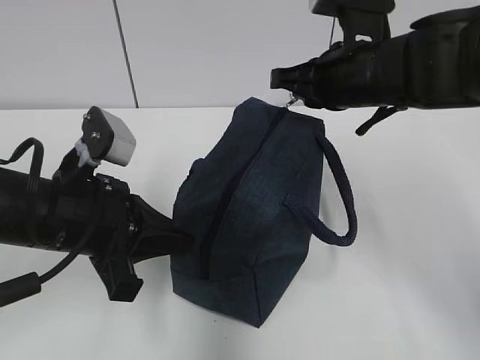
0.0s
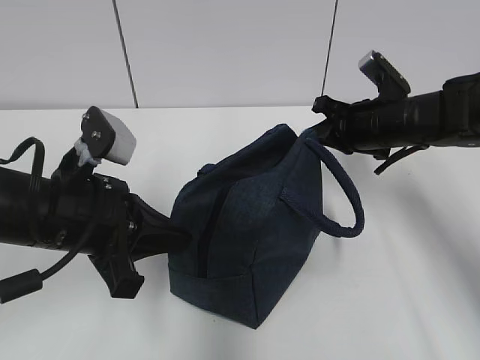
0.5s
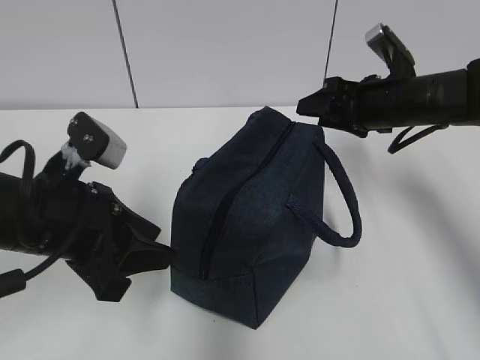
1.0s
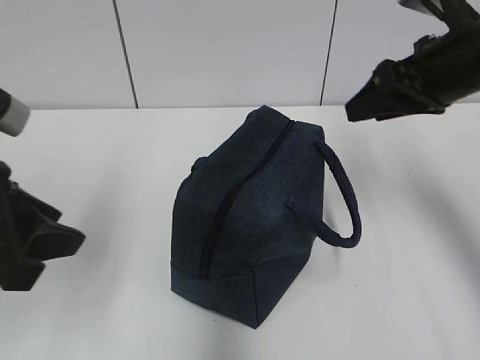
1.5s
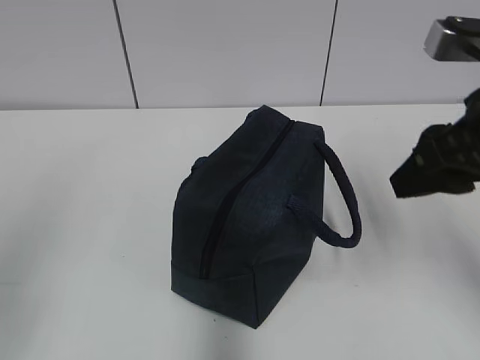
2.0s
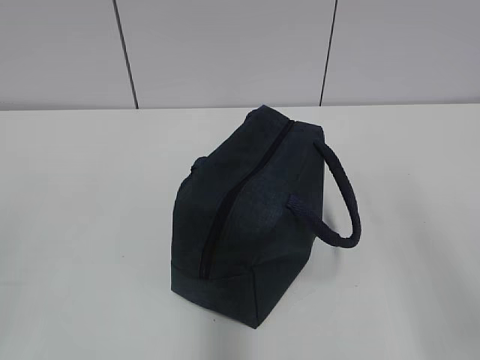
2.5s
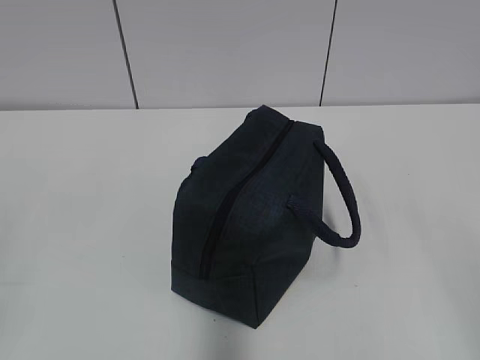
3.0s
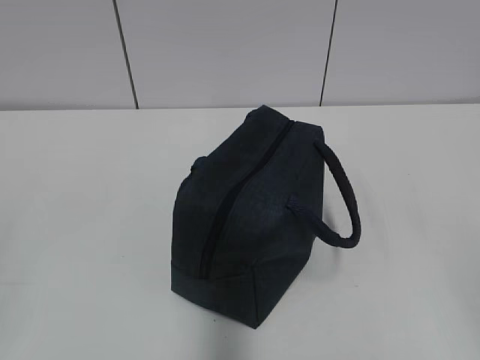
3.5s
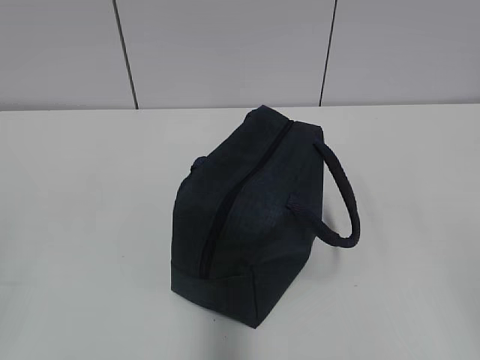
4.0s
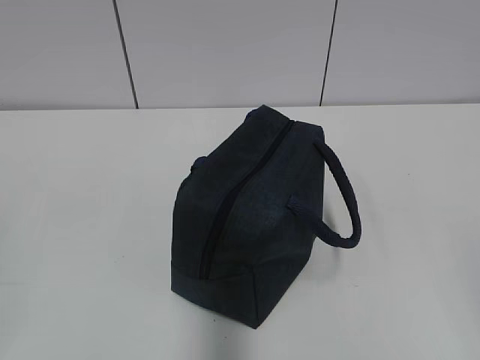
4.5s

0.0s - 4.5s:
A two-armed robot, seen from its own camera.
0.0s - 2.0s: The right gripper shifts roughly 20 cm backward and to the right, and opens, while the left gripper heads backward, to the left and upward, covering some 25 cm, and opens.
2.0s - 4.5s: The right gripper goes some 20 cm backward.

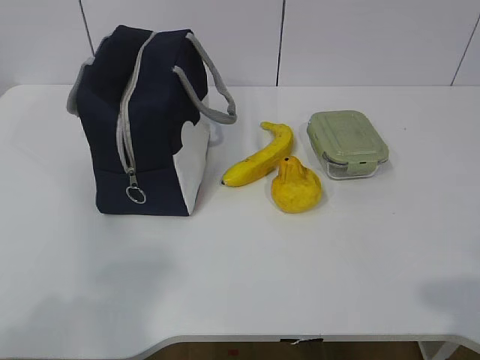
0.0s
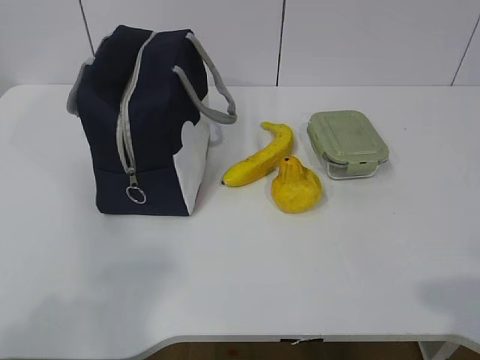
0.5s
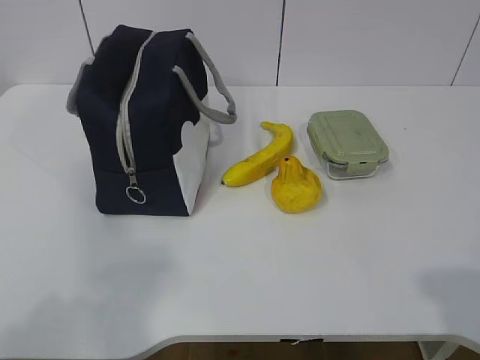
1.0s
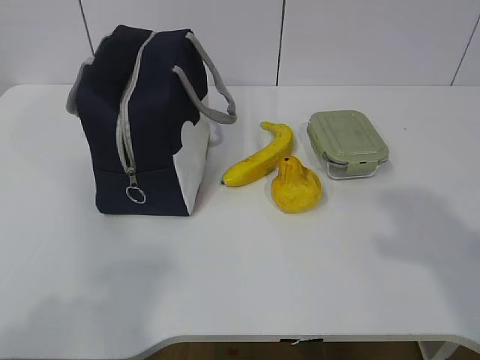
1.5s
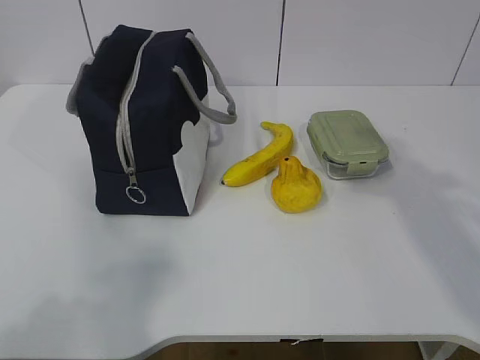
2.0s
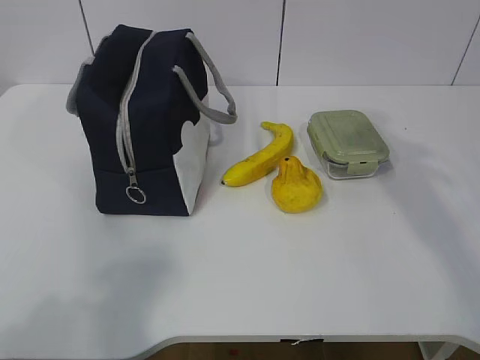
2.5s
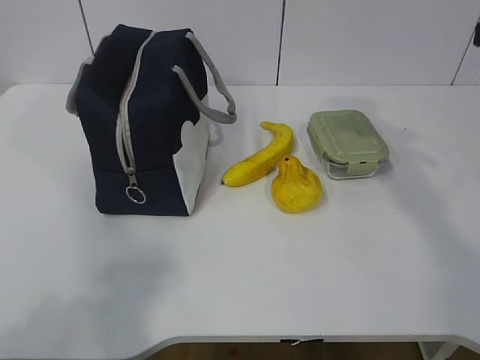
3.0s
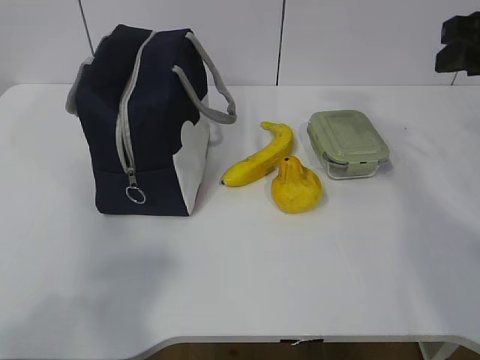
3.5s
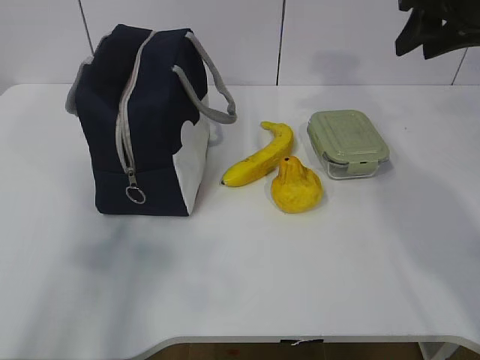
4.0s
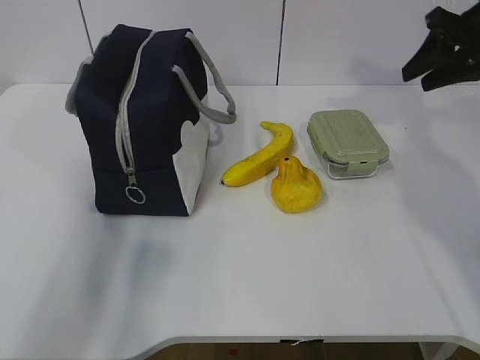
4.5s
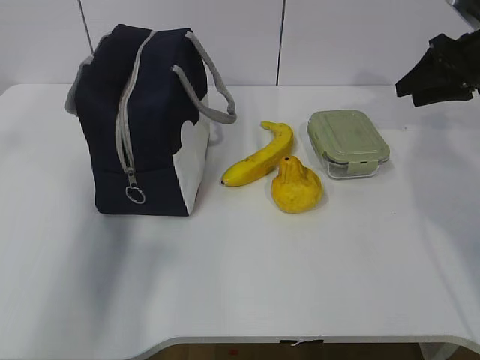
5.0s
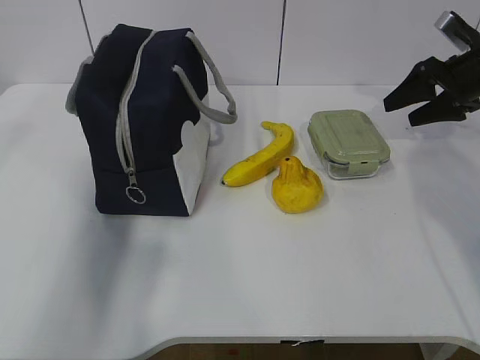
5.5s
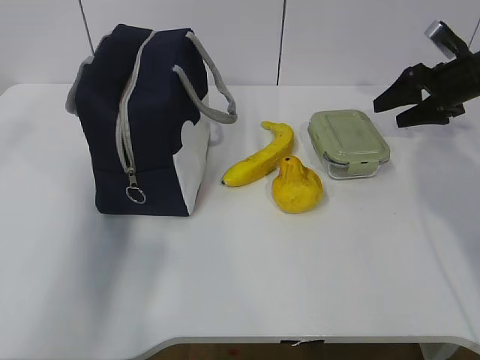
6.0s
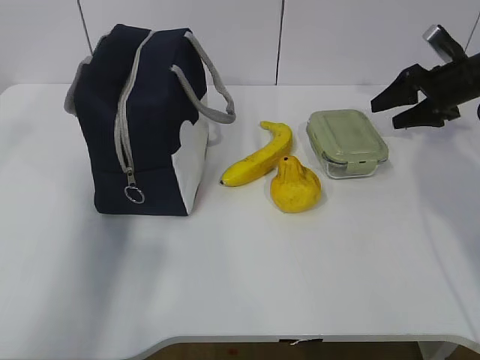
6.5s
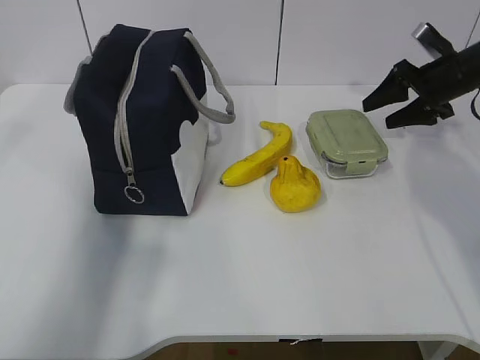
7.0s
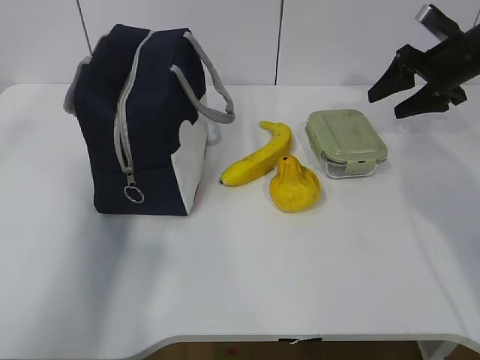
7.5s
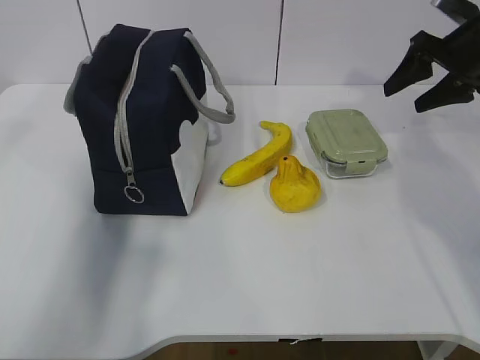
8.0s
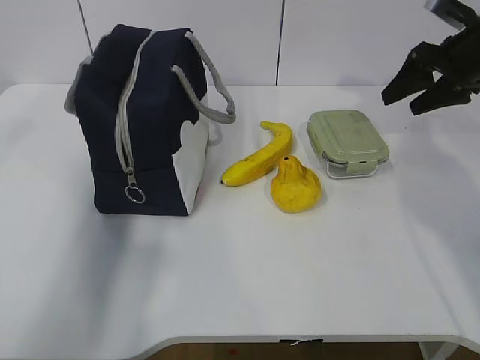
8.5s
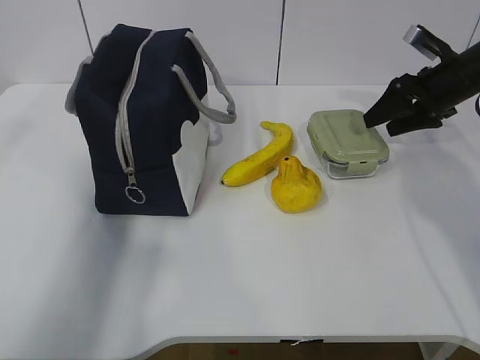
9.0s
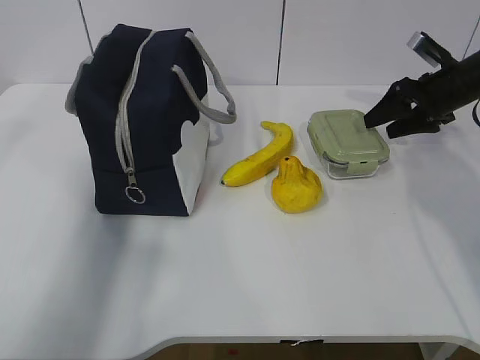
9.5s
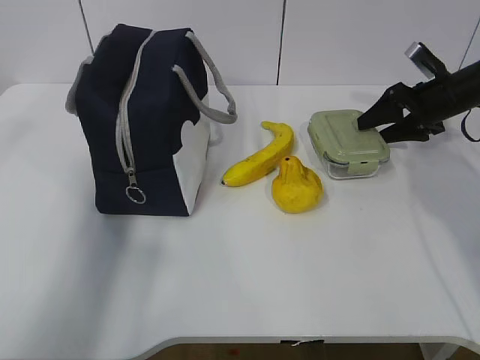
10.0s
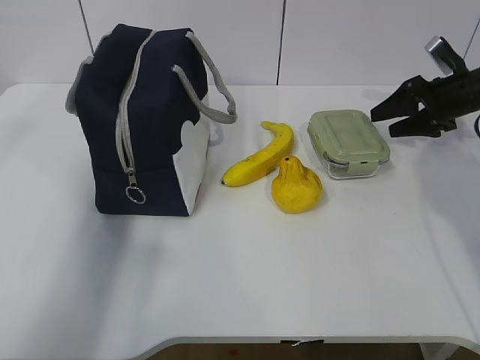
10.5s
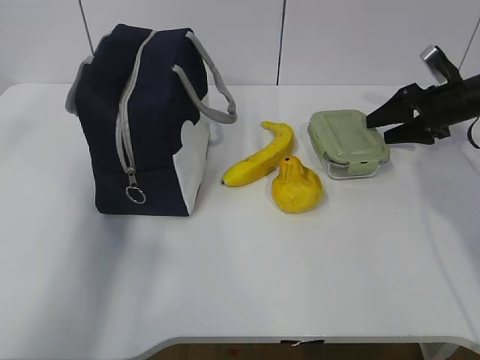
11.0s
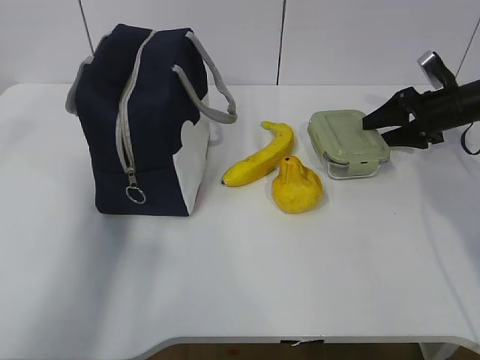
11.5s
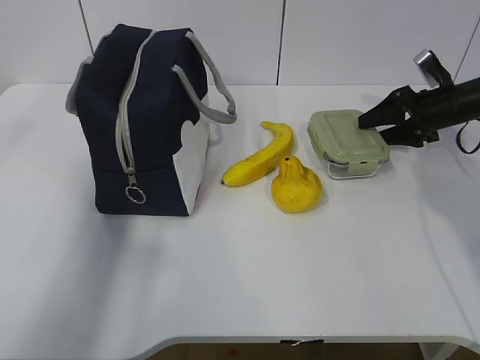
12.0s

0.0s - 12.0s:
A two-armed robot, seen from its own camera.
2.0s - 4.0s: The left gripper moves forward, approximately 10 cm. Meanwhile the right gripper is displaced forward by about 25 cm.
4.0s - 6.0s: The right gripper is displaced downward, to the right and forward by approximately 20 cm, and opens its fingers. The left gripper heads forward, covering some 15 cm.
6.0s - 8.0s: The right gripper goes approximately 5 cm upward.
8.0s - 10.0s: The right gripper shifts approximately 10 cm downward.
10.0s - 12.0s: The grippers move only a little.

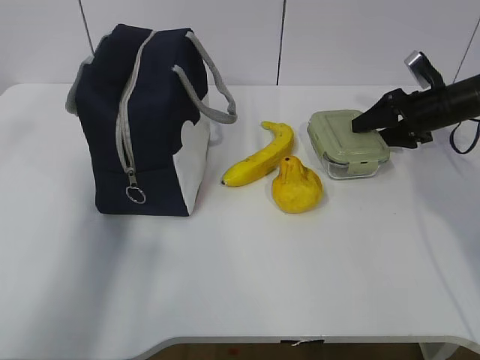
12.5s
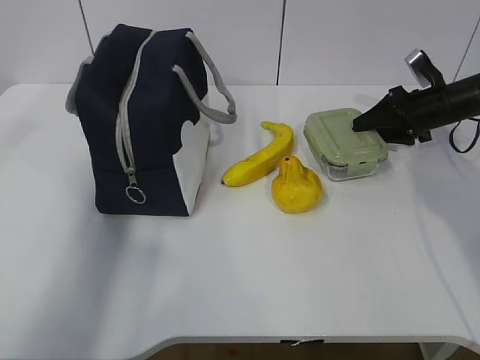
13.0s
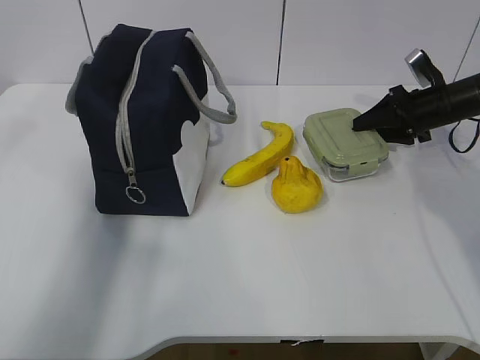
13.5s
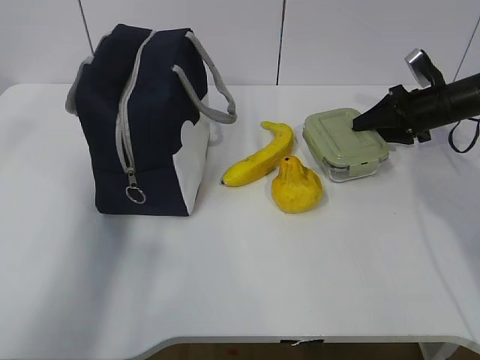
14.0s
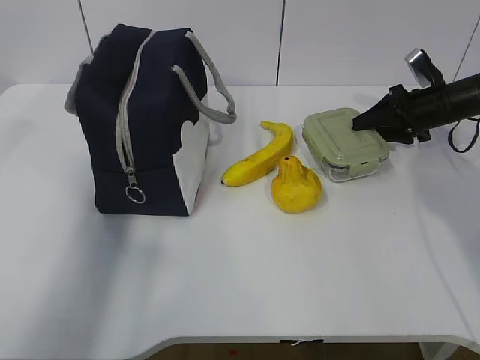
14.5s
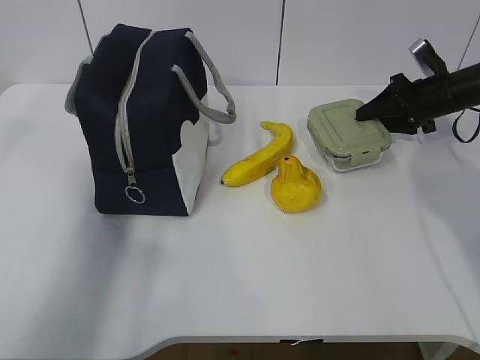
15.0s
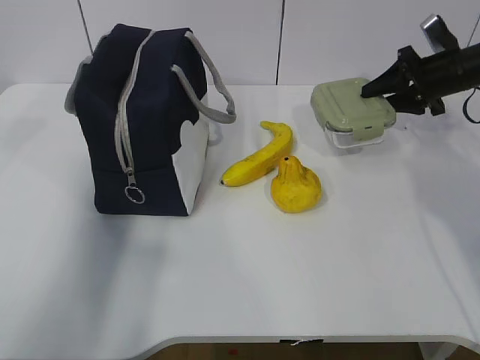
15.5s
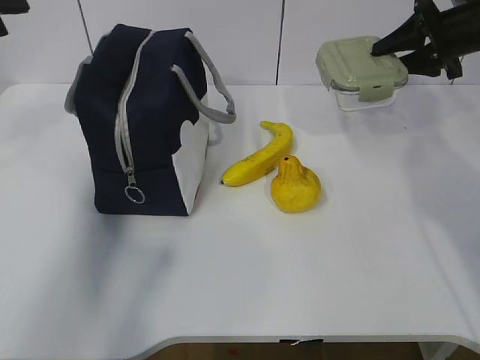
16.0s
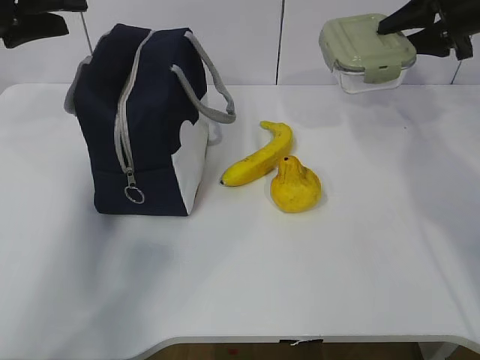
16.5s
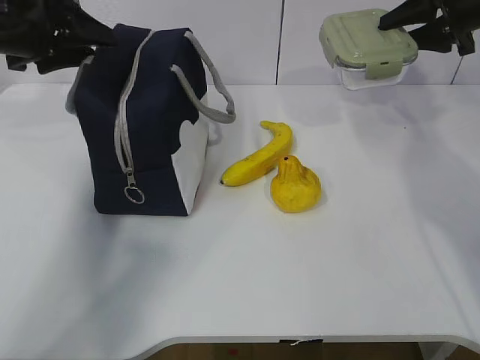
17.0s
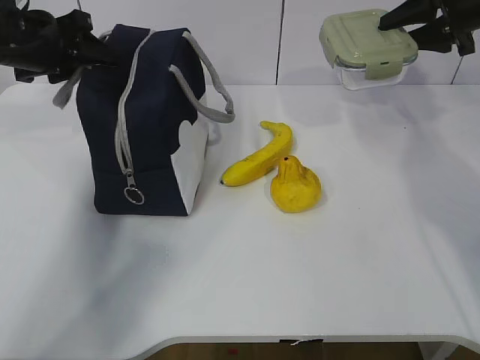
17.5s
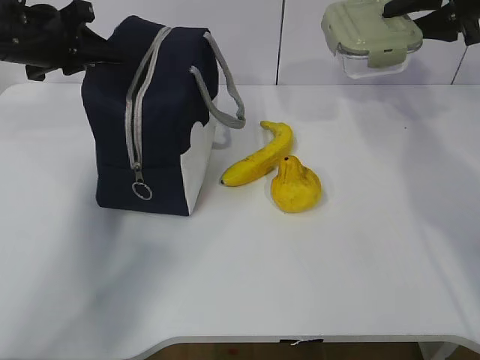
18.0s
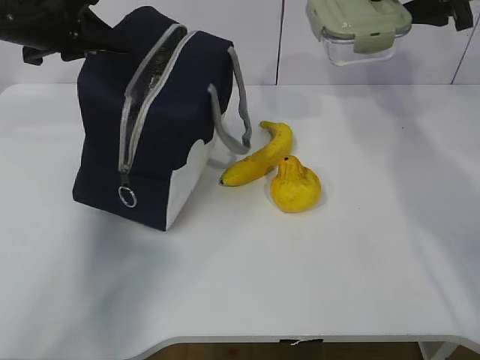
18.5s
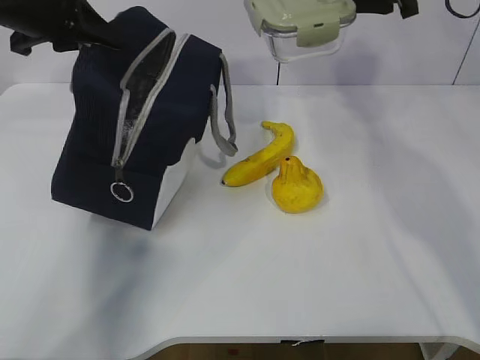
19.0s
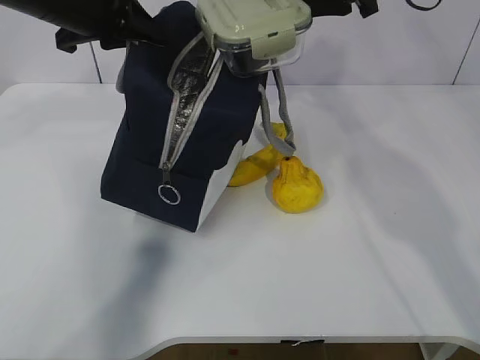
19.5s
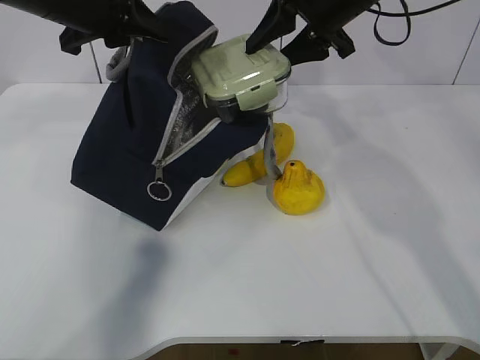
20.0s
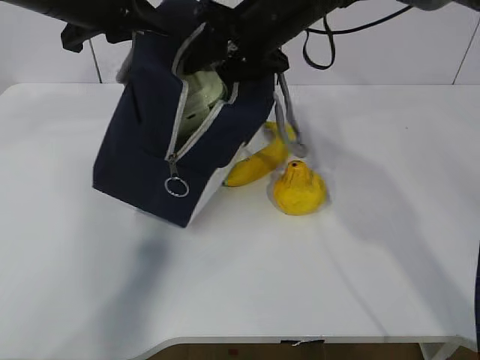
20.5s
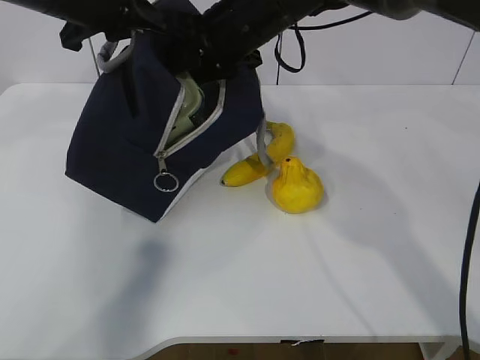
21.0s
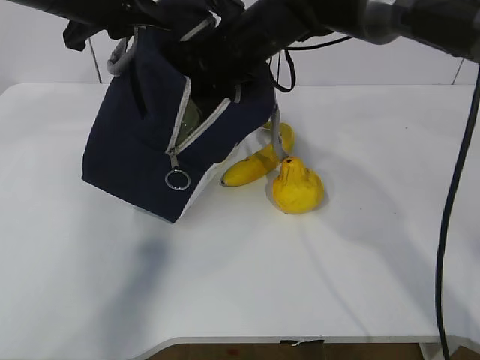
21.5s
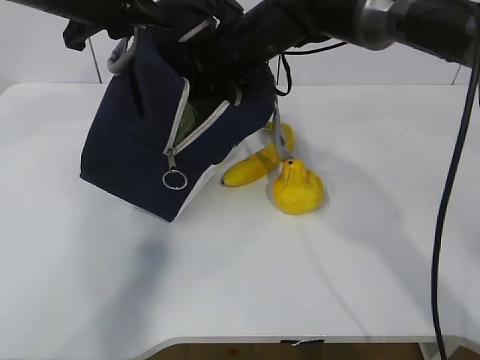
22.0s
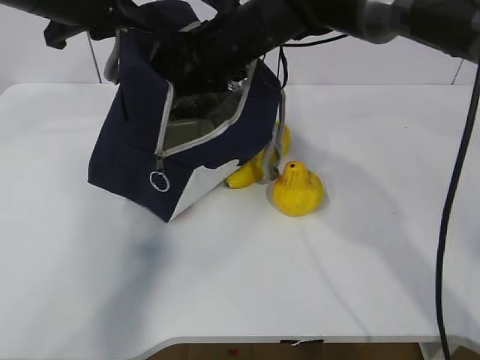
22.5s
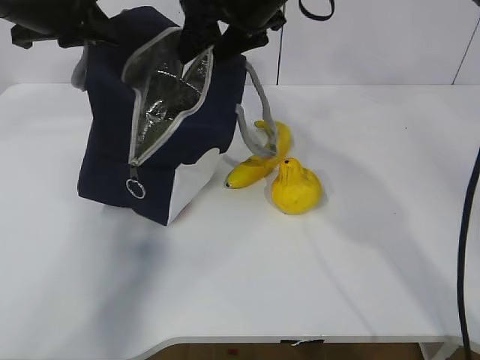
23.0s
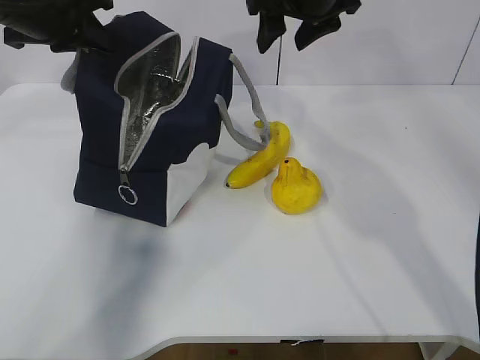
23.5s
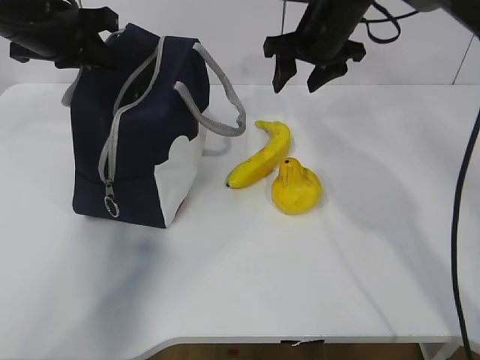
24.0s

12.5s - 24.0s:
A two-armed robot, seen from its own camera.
Step, 13.0s - 16.0s: Grab the lunch bag with your left hand.
Step, 16.5s - 18.5s: Place it into the bag with your right hand.
Step, 19.0s - 22.5s: Grab the banana with your right hand.
12.5s - 14.5s: Both grippers stay about where they are.
14.5s - 16.5s: The left gripper goes roughly 15 cm forward. Meanwhile the right gripper goes roughly 15 cm upward.
16.5s - 18.5s: The left gripper closes up. The right gripper shifts by about 5 cm.
18.5s - 20.0s: The right gripper travels to the left by some 15 cm, while the left gripper moves to the right, about 5 cm.
20.0s - 22.0s: The right gripper moves to the left and downward, about 15 cm.
22.0s - 24.0s: The left gripper travels to the left by about 5 cm; the right gripper heads to the right, covering roughly 10 cm.
